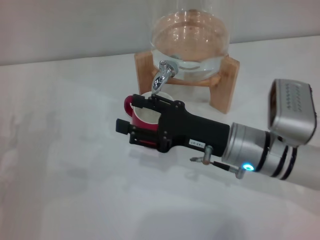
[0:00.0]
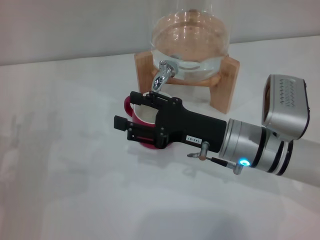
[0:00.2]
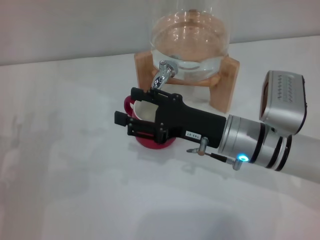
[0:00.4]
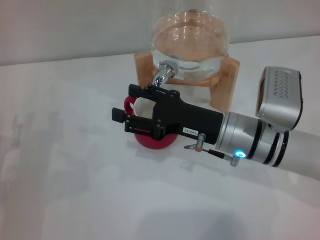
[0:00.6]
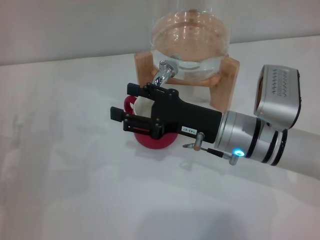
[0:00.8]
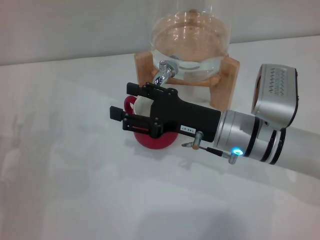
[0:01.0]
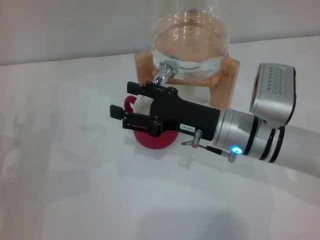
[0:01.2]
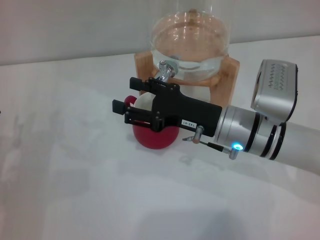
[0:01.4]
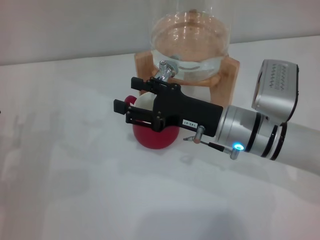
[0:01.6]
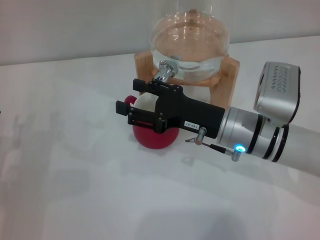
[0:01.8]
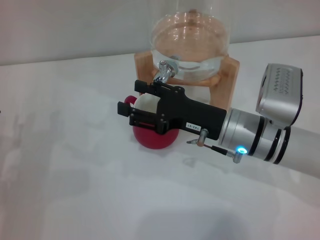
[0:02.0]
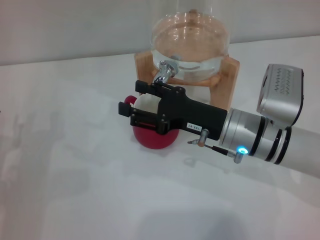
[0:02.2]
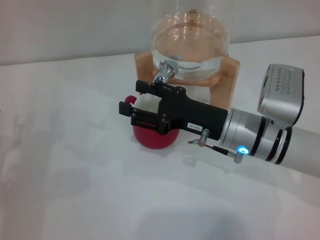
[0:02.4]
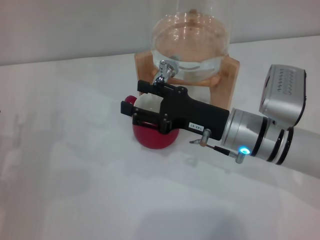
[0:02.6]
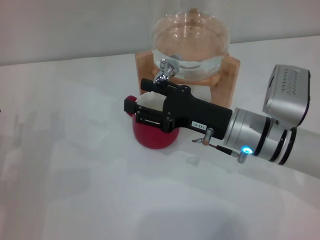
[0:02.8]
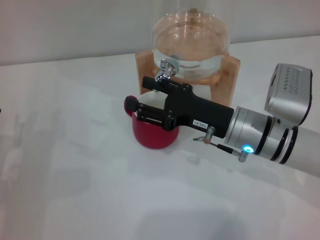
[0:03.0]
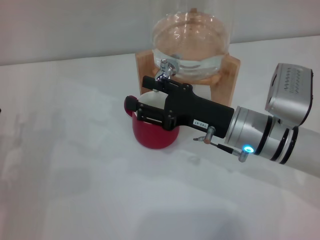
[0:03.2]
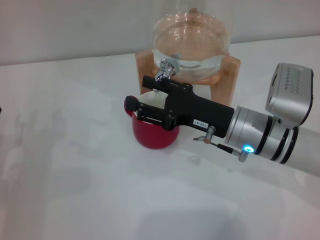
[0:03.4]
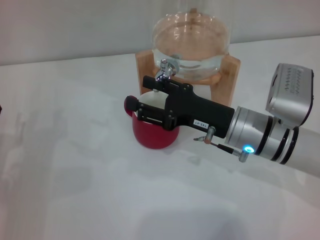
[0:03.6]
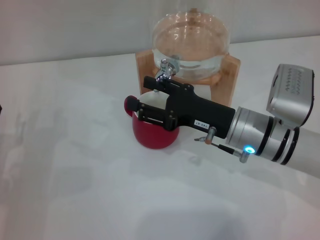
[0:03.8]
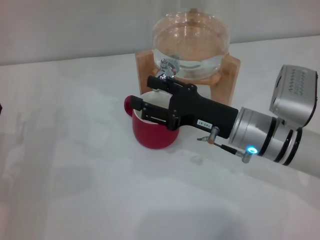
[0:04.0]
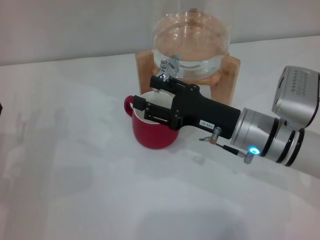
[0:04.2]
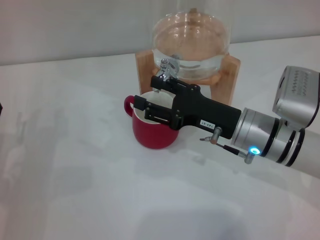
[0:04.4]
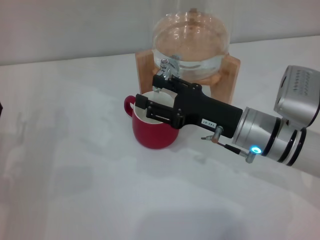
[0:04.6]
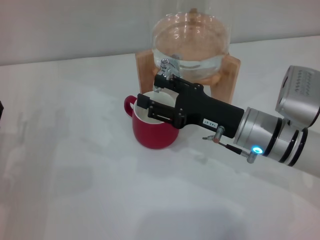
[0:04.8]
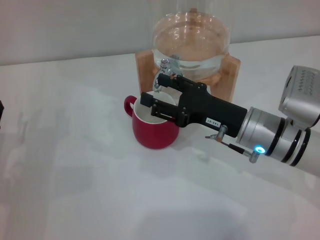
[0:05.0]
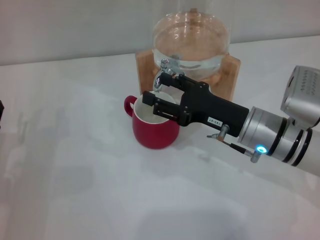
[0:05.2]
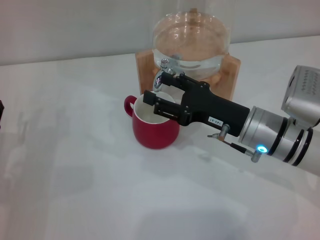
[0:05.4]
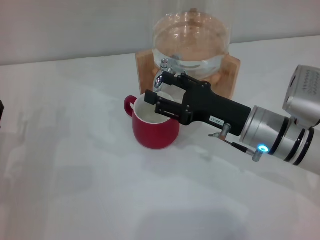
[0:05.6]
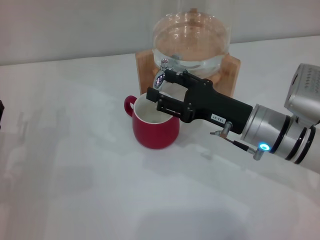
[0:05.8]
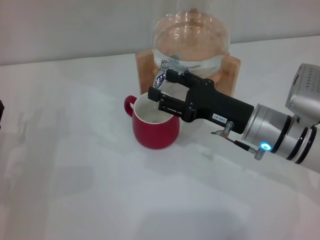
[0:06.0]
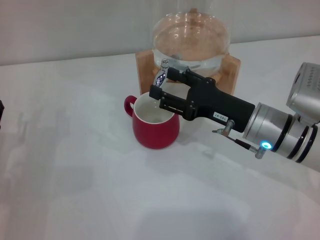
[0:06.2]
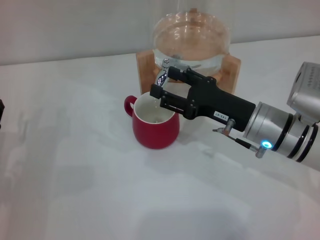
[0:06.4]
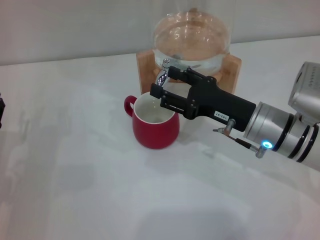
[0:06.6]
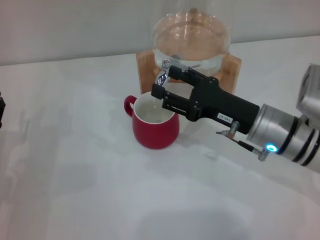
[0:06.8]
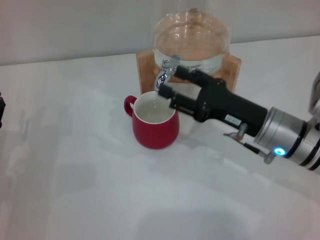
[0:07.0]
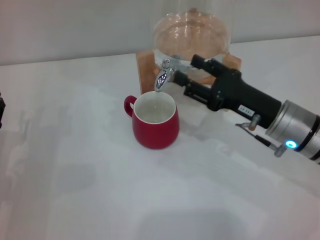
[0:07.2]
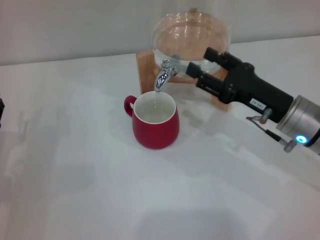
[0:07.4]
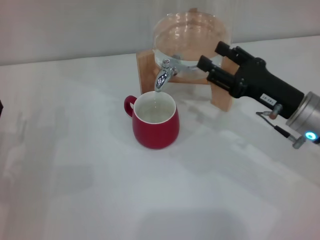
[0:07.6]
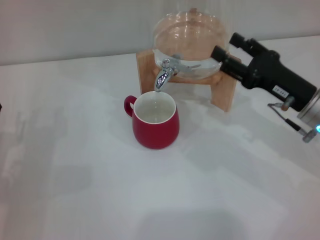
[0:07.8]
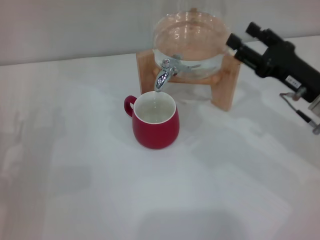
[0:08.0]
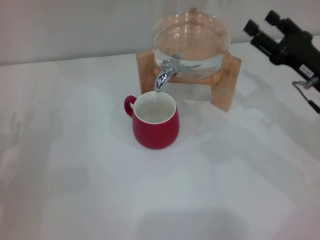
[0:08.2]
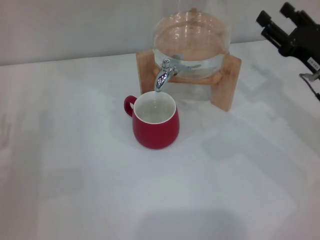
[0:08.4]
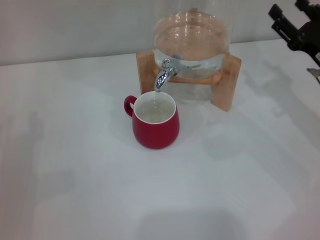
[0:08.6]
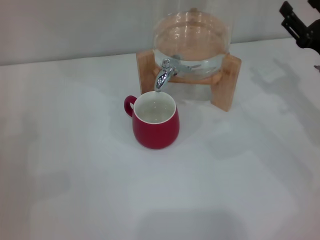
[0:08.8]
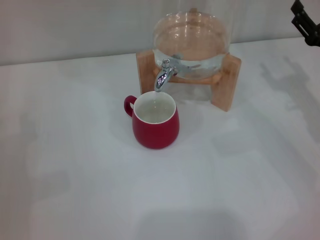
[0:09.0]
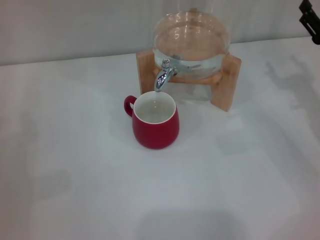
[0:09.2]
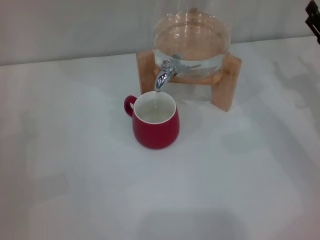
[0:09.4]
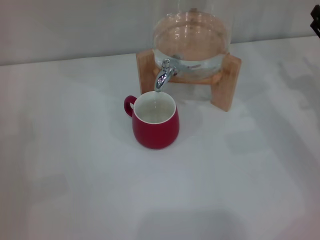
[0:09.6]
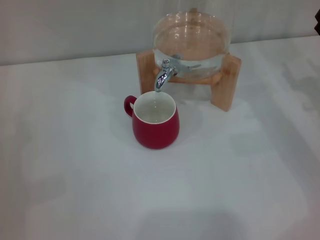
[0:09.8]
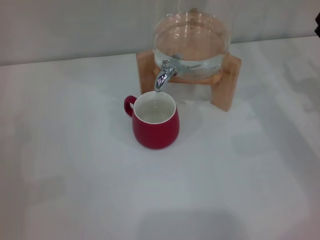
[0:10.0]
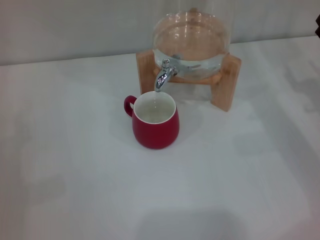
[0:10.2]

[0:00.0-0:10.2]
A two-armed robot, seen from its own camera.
Task of the whole recording: the left gripper pick up the red cup and place it horizontally under the faucet, the right gripper turn on the faucet to fill the cup, and then turn off the faucet.
Step, 0:00.0 to 0:07.2: Close the dispenser valve with the right gripper.
0:00.0 to 0:03.0: The grippers make only small movements.
0:03.0 to 0:04.4: Both grippers stay about where they are.
0:04.4 to 0:07.2: The grippers move only a little.
0:07.2 to 0:08.8: The right gripper moves to the right, some 10 cm.
0:08.8 to 0:10.2: There are only small adjustments of the grippers.
